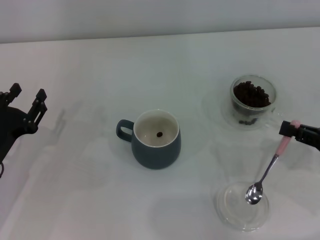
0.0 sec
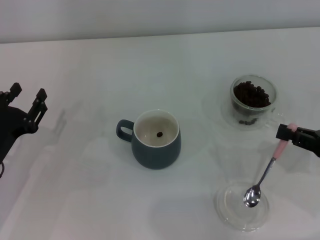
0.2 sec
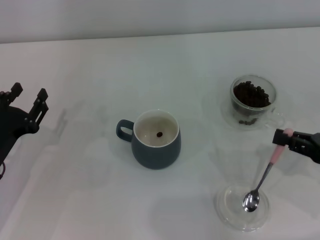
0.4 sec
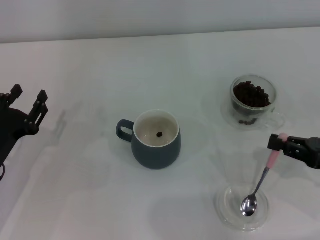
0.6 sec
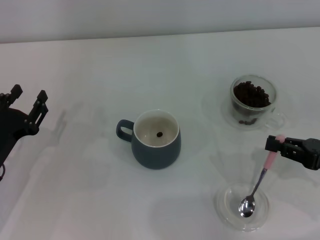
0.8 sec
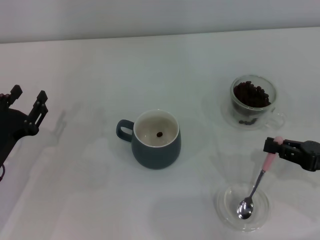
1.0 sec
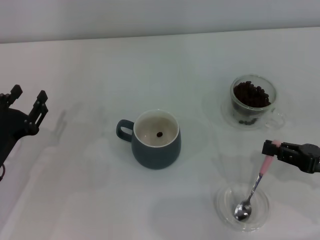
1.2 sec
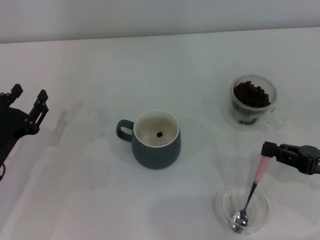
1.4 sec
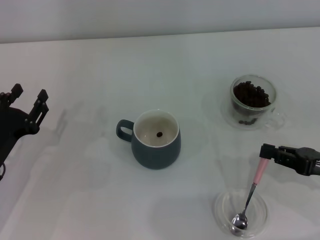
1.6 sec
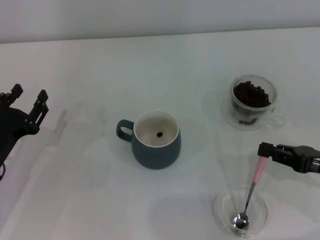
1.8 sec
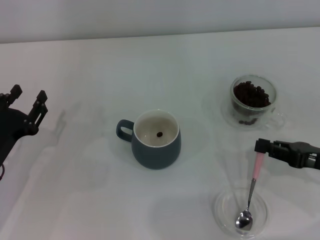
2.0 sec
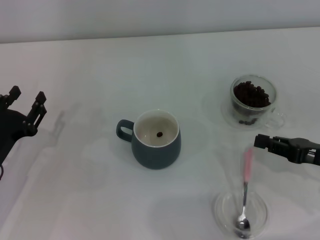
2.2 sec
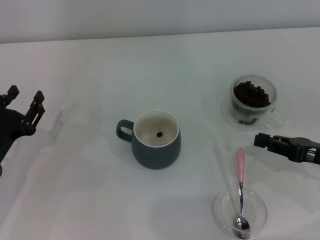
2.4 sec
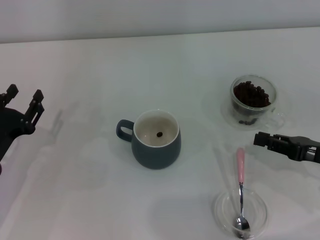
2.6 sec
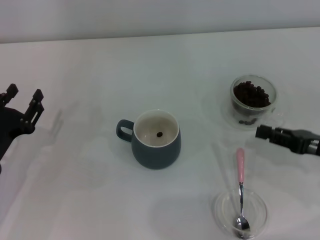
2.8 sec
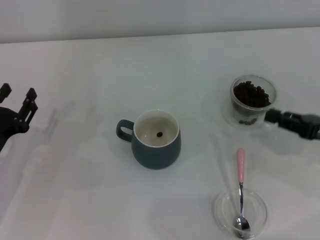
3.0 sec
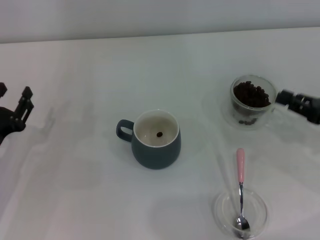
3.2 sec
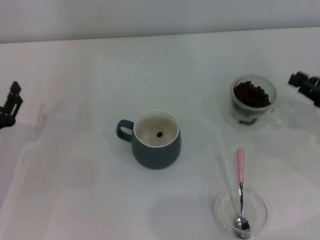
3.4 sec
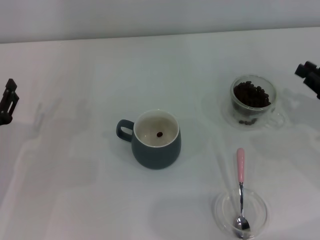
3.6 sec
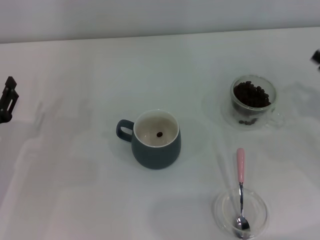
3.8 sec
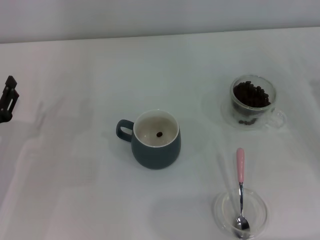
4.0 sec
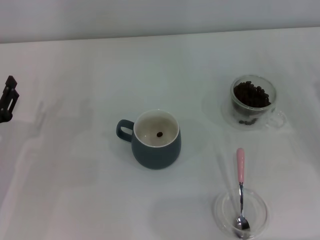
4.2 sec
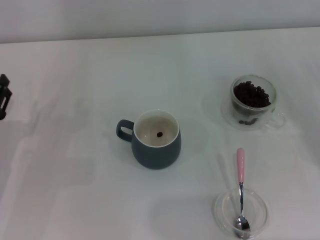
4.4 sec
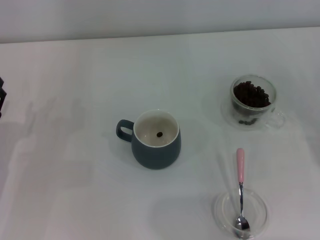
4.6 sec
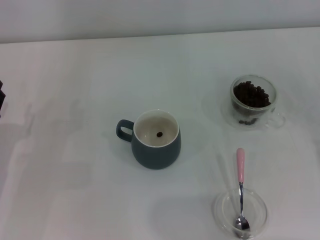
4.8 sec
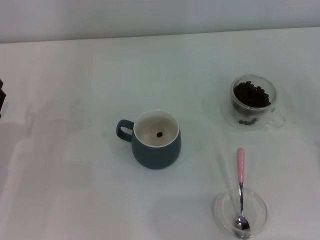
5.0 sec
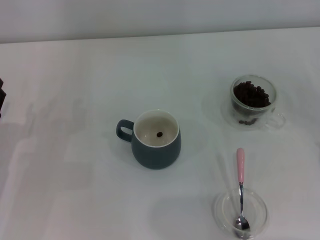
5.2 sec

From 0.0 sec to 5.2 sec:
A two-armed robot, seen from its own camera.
Task of the whole recording: Use a pink spoon to take out the coffee beans from the glass and pour them into the gray cup.
Step, from 0.0 sec to 2.2 sec: Place the spoon back in its original place with the right gripper.
From 0.0 sec to 1.8 sec: The grippers move only a little.
From 1.8 sec to 3.4 sec: The right gripper ends up approximately 5 cm from where it was.
From 3.4 sec to 5.2 sec: The right gripper ends up some 5 cm from where it was.

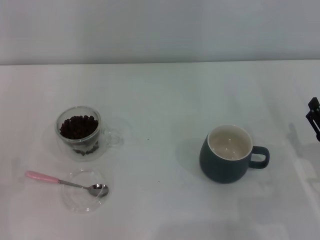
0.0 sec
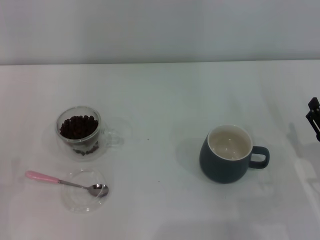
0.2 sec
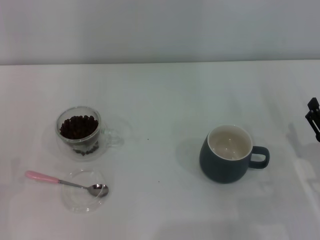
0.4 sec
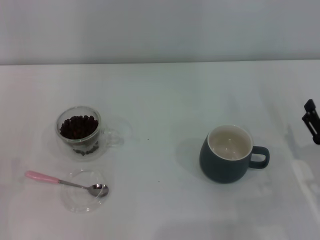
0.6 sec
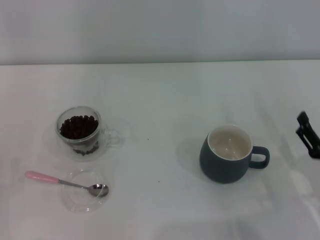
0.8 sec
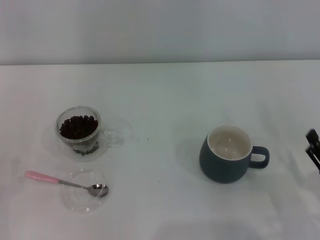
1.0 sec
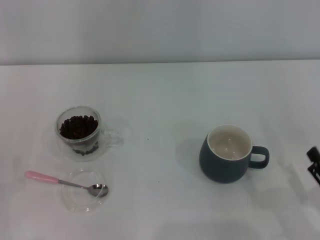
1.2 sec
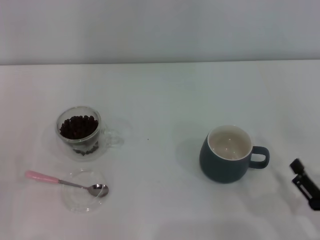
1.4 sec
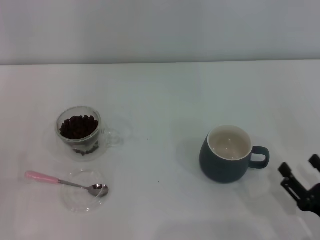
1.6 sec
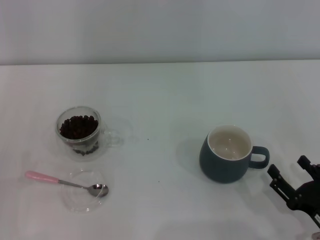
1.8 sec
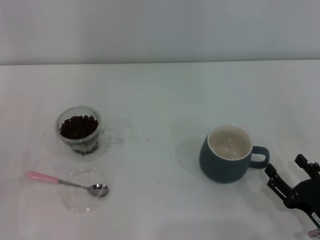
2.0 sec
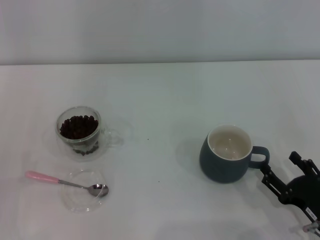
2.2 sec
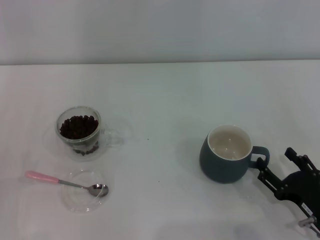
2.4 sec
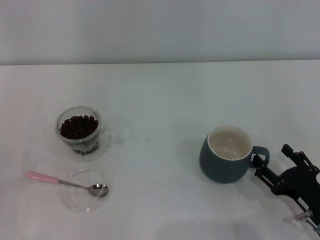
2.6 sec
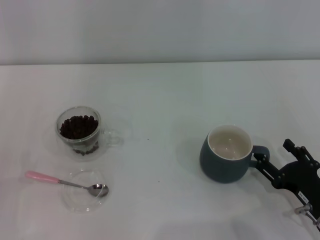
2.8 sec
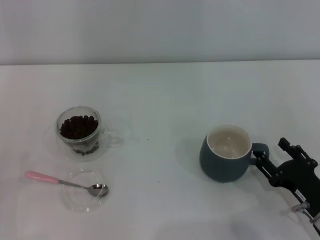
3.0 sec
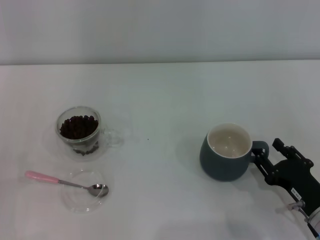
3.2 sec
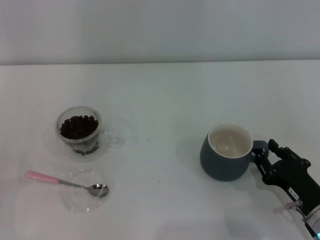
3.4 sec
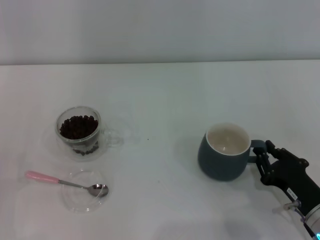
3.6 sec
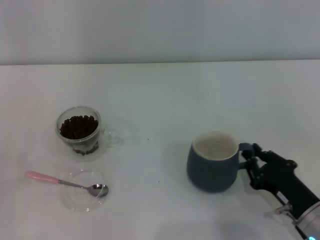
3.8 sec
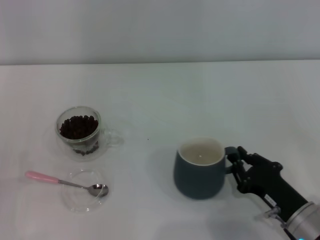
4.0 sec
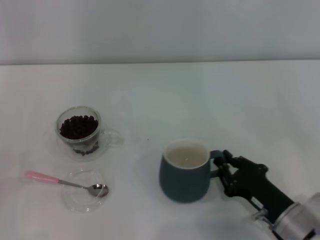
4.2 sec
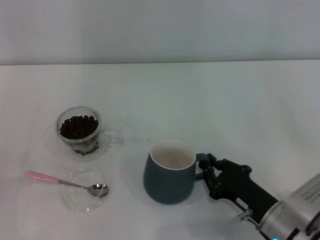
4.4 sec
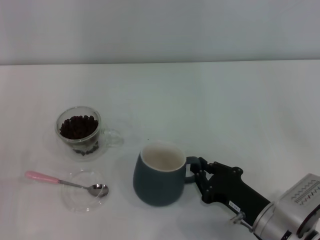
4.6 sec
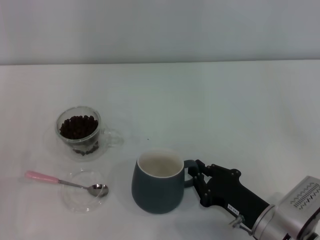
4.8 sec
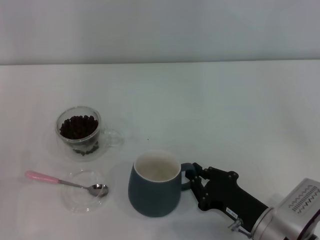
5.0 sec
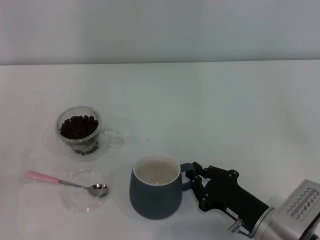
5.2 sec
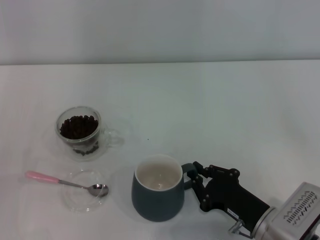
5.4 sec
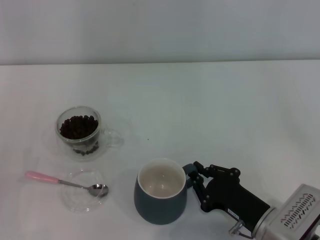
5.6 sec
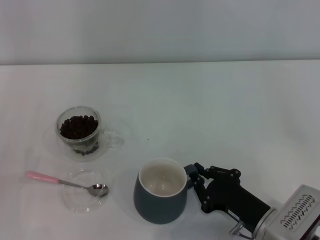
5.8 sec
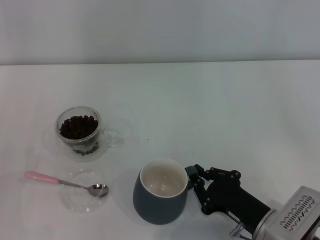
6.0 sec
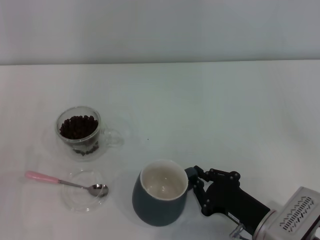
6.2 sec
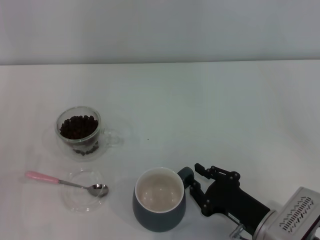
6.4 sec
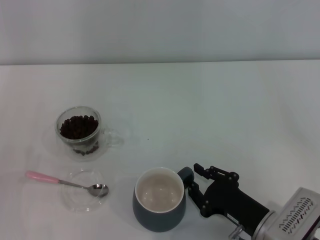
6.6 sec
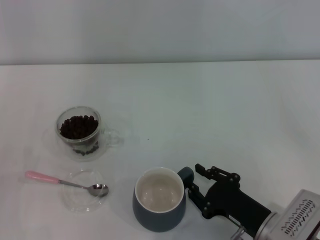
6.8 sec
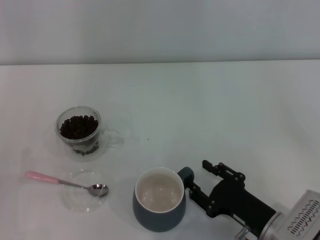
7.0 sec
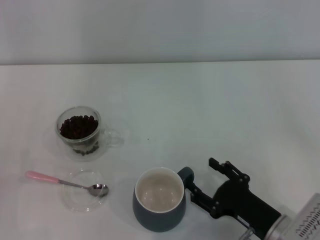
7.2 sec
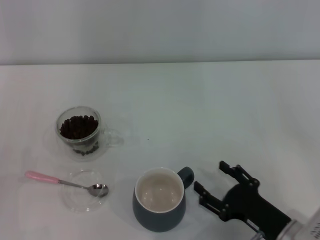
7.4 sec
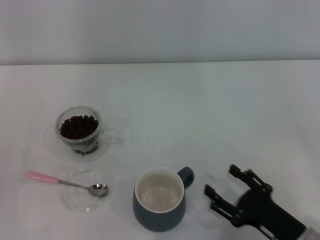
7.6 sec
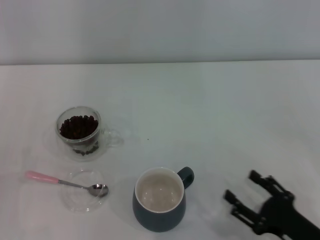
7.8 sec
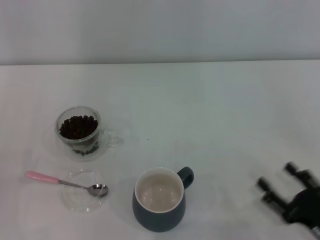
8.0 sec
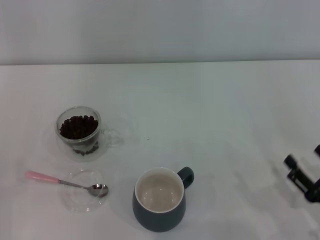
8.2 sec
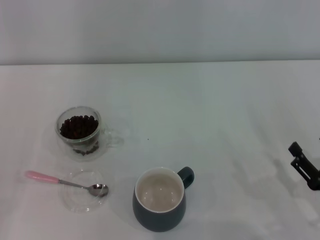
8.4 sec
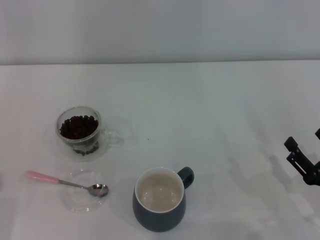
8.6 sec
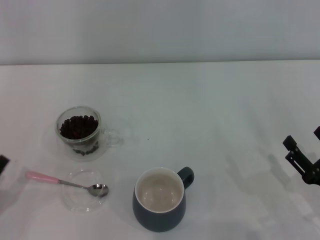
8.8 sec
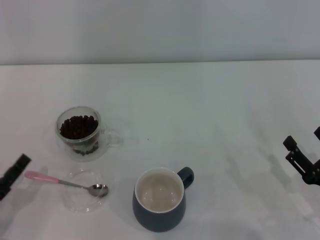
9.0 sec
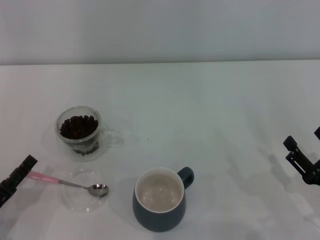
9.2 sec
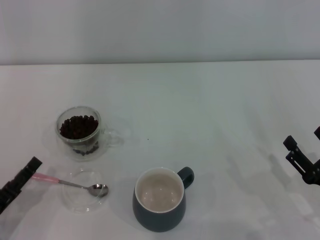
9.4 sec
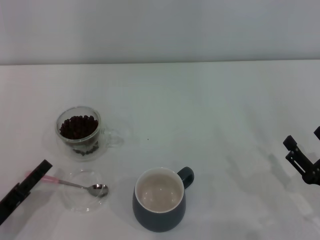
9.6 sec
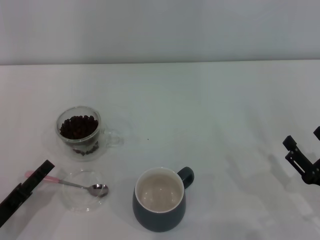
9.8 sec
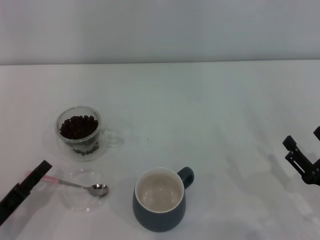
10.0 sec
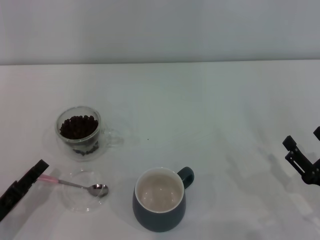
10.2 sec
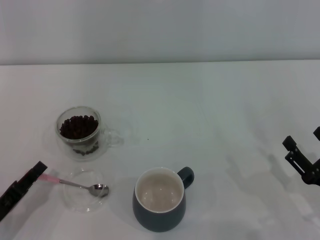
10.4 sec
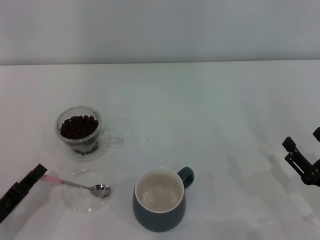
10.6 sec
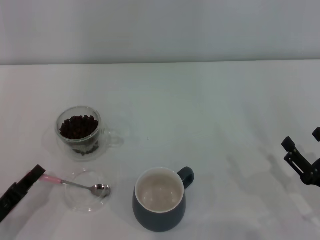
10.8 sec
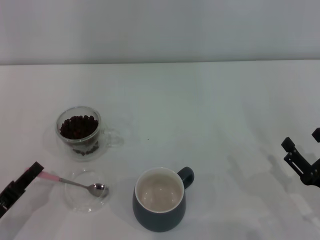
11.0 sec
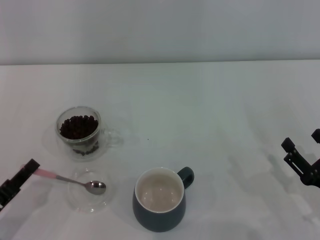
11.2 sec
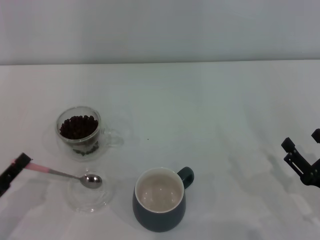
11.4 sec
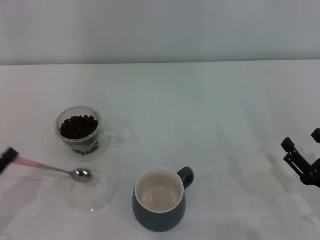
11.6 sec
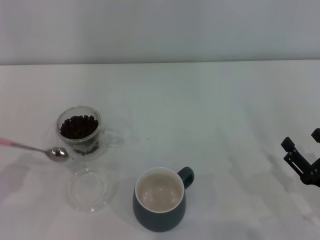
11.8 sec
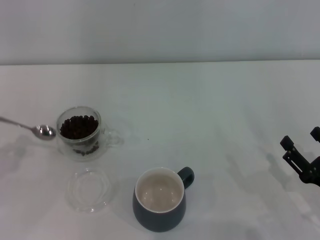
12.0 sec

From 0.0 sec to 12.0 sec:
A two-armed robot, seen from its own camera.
Task of the whole recording: Use a pink spoon to take out the coffee beans from the glass and pour them into the gray cup.
Step, from 7.6 sec to 11.6 sec: Pick up the spoon with the right gripper.
From 0.0 sec to 1.6 sec: The right gripper is displaced backward by some 10 cm.
From 1.6 sec to 3.0 sec: The right gripper goes roughly 5 cm forward.
From 3.0 sec to 4.4 sec: The right gripper heads to the left, covering approximately 5 cm, and closes up.
From 4.4 sec to 6.0 sec: The grippers move only a little.
From 6.0 sec to 7.6 sec: The right gripper ends up roughly 5 cm from where it was, and opens.
From 7.6 sec to 9.0 sec: The right gripper heads to the right, covering about 5 cm.
From 9.0 sec to 10.4 sec: The left gripper closes its fingers.
From 10.4 sec to 12.0 sec: The left gripper travels upward and to the left by approximately 10 cm, and closes up.

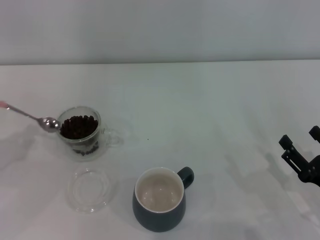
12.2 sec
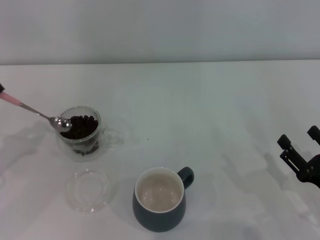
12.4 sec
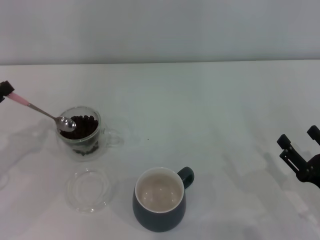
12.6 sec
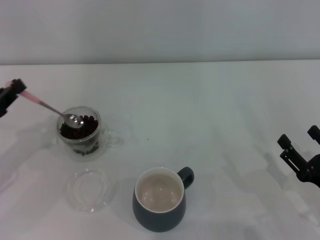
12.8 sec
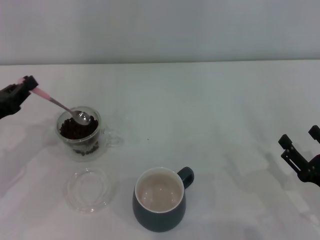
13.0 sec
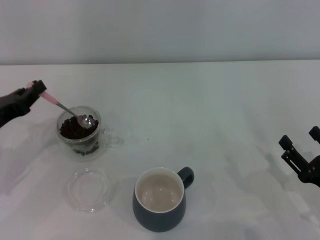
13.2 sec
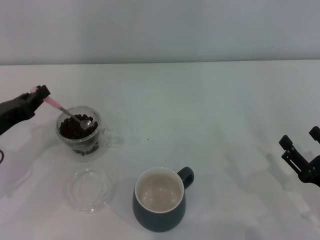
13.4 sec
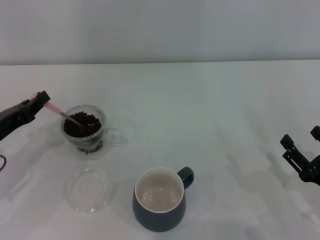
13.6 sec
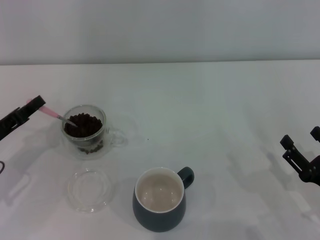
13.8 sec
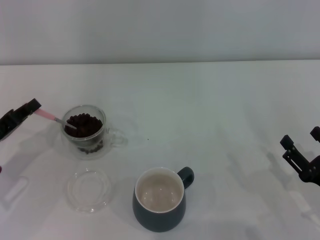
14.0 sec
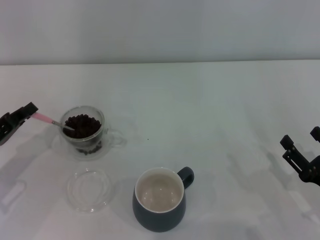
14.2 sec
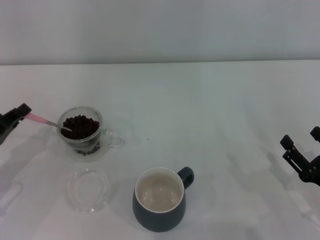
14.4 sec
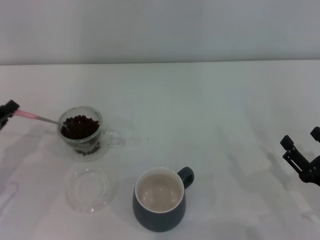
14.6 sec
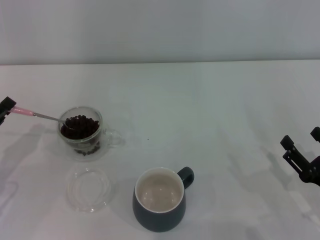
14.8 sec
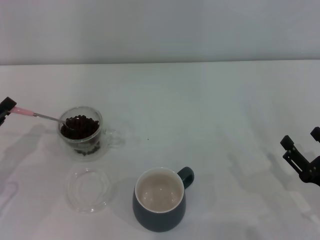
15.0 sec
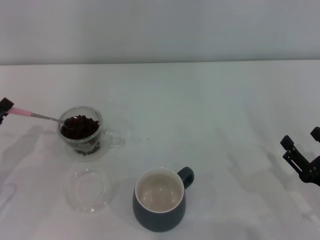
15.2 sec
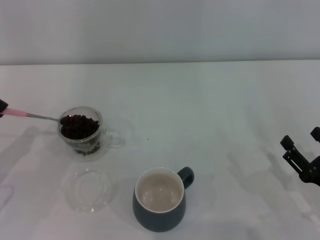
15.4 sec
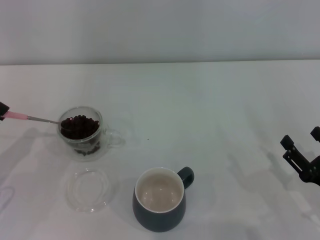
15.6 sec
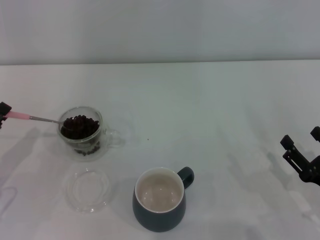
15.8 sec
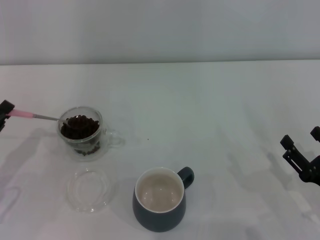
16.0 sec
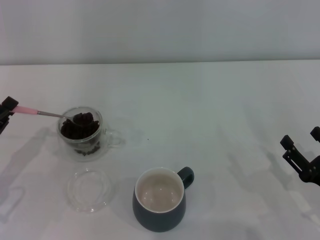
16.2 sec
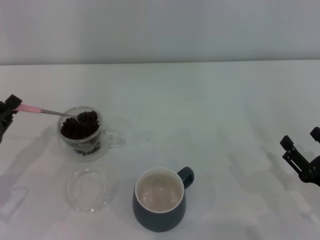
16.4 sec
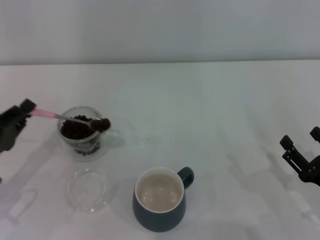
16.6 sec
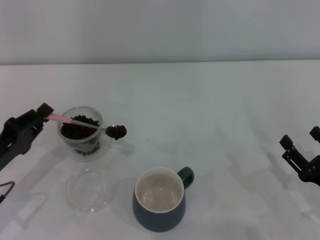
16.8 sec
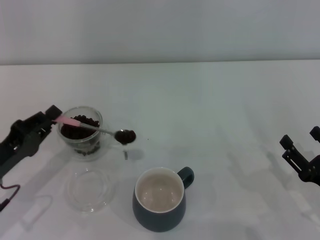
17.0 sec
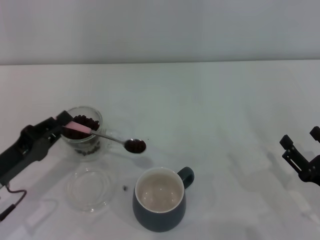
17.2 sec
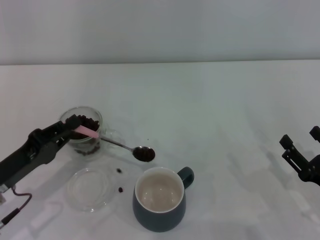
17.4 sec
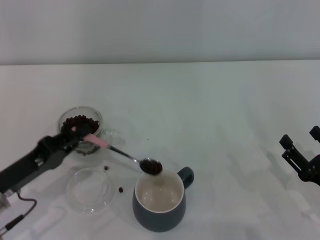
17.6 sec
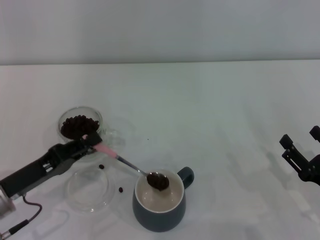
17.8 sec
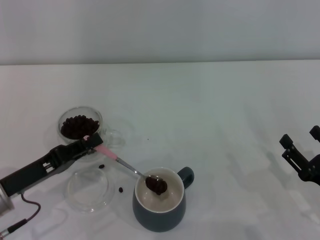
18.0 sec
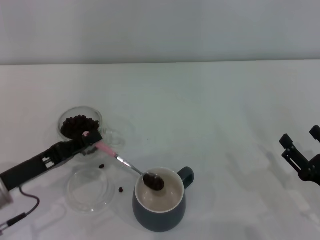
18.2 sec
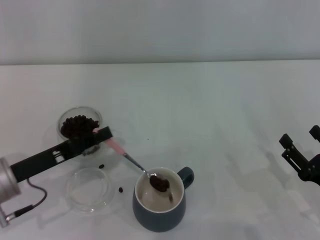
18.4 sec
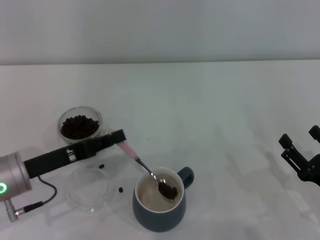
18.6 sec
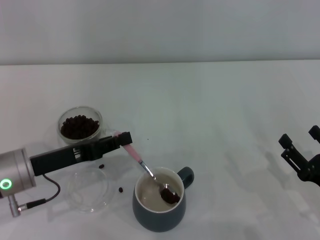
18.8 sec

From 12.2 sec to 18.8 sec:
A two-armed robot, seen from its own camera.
Task of the whole recording: Use a pink spoon to take out the coffee beans from the glass and pour them into the gray cup.
From 12.2 sec to 13.8 sec: The left gripper moves to the right, approximately 5 cm.
From 15.4 sec to 17.2 sec: The left gripper heads to the right, covering approximately 5 cm.
From 17.2 sec to 18.8 sec: The left gripper changes place by roughly 5 cm.
